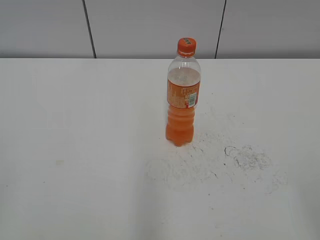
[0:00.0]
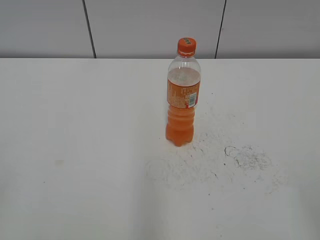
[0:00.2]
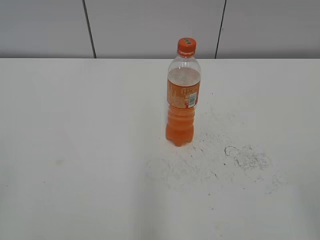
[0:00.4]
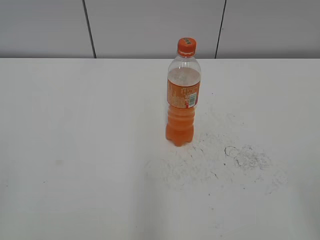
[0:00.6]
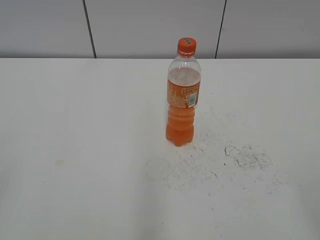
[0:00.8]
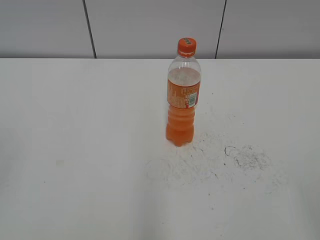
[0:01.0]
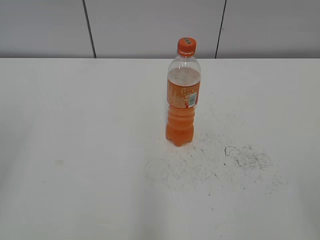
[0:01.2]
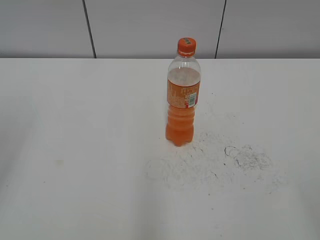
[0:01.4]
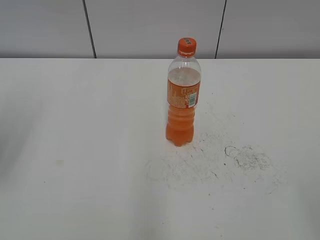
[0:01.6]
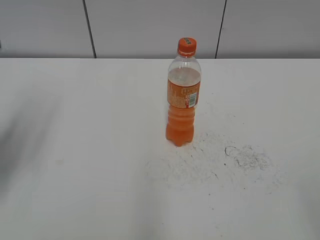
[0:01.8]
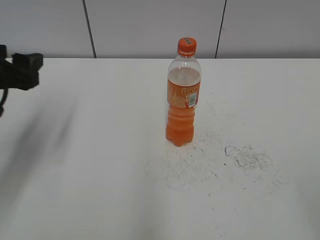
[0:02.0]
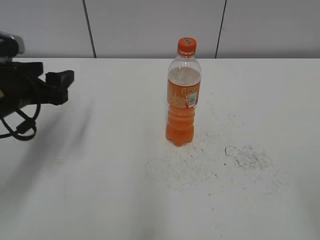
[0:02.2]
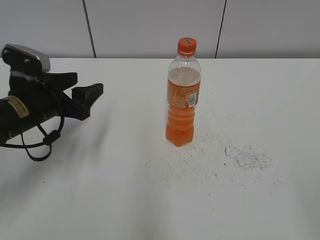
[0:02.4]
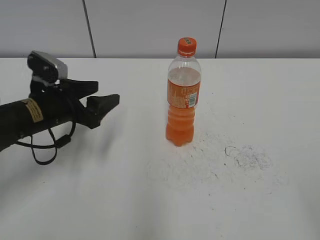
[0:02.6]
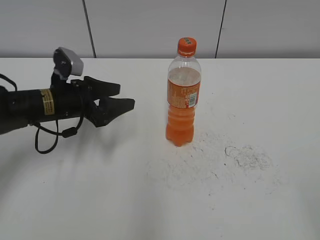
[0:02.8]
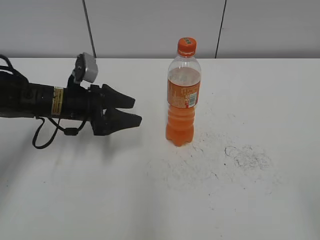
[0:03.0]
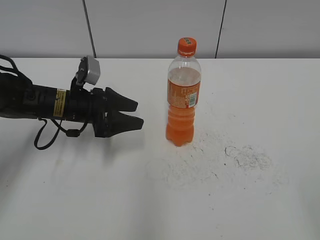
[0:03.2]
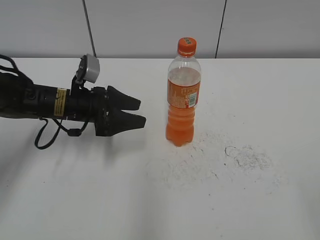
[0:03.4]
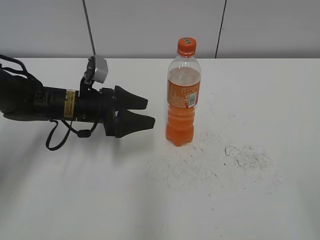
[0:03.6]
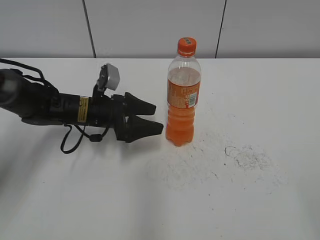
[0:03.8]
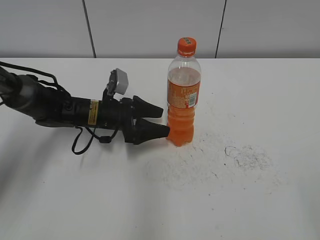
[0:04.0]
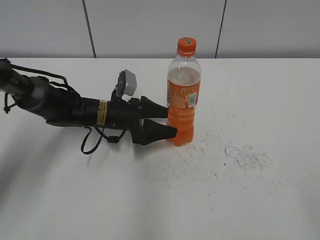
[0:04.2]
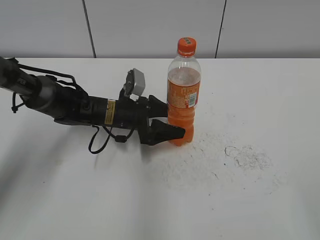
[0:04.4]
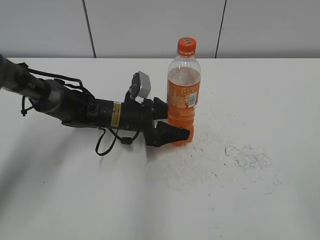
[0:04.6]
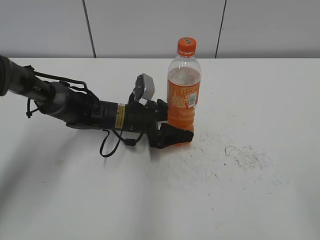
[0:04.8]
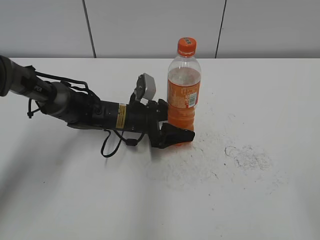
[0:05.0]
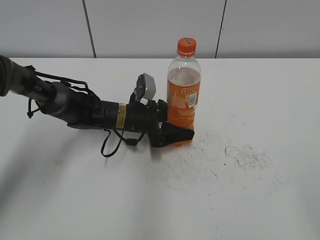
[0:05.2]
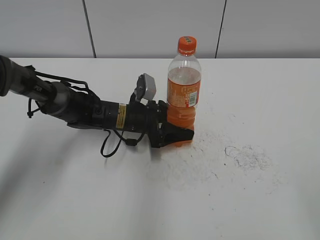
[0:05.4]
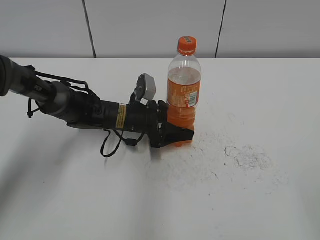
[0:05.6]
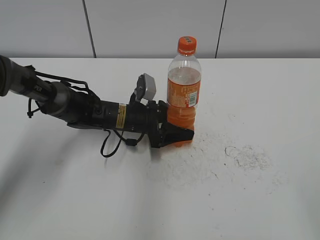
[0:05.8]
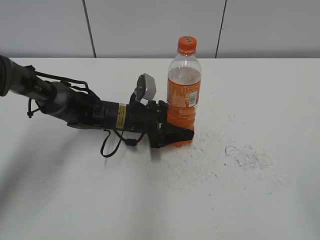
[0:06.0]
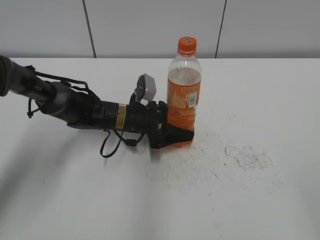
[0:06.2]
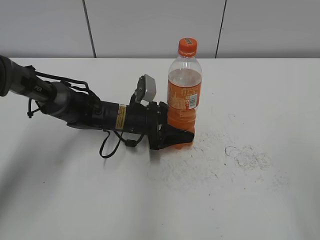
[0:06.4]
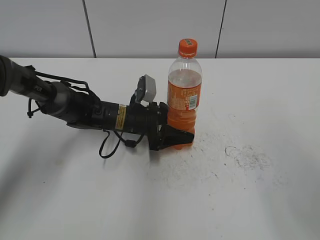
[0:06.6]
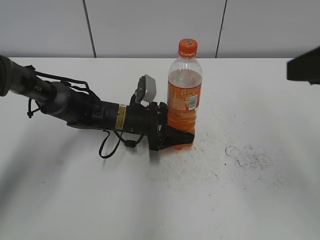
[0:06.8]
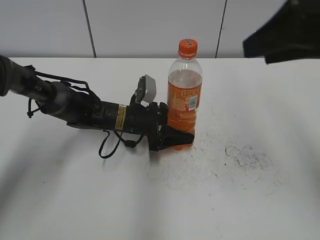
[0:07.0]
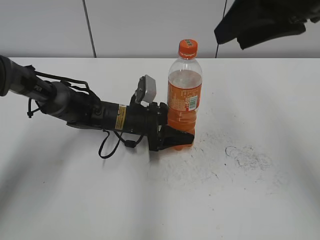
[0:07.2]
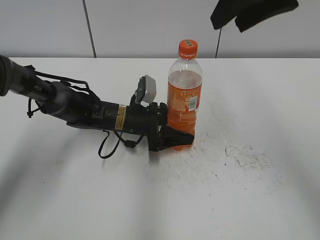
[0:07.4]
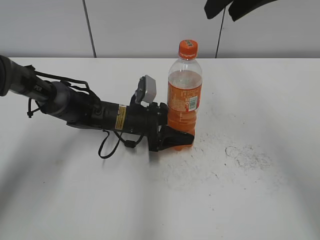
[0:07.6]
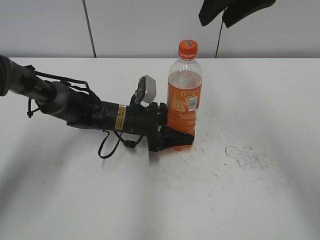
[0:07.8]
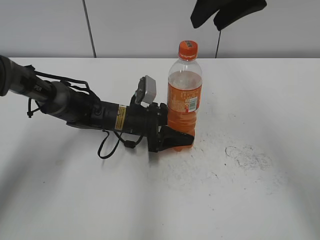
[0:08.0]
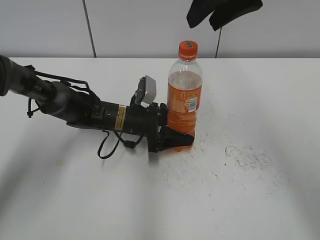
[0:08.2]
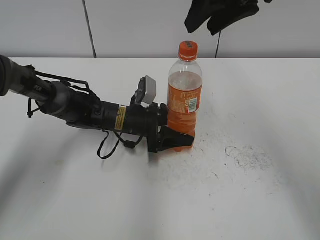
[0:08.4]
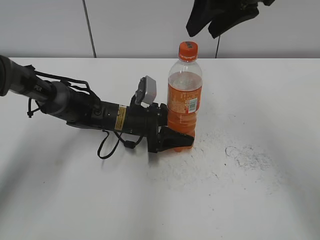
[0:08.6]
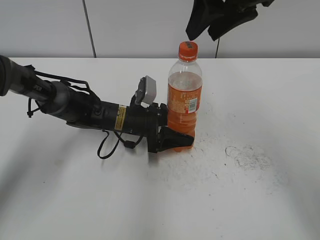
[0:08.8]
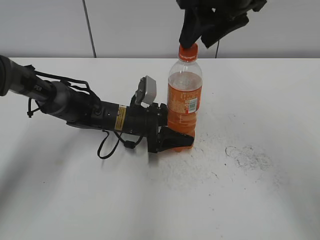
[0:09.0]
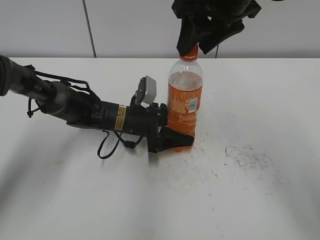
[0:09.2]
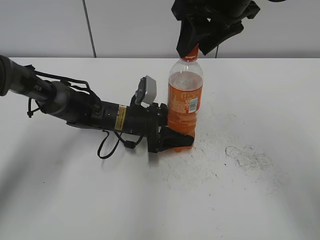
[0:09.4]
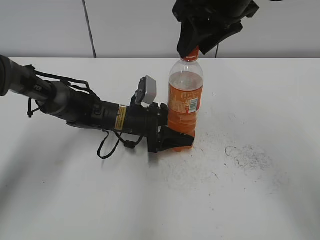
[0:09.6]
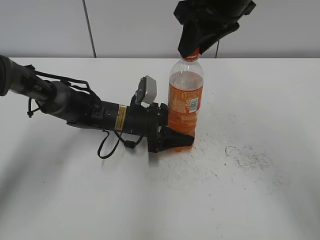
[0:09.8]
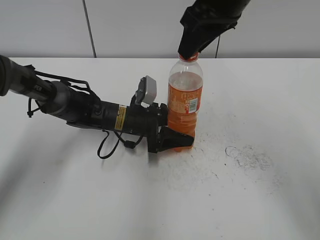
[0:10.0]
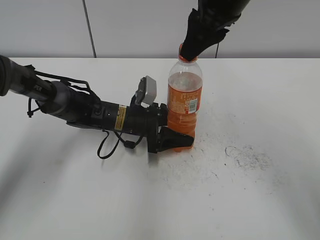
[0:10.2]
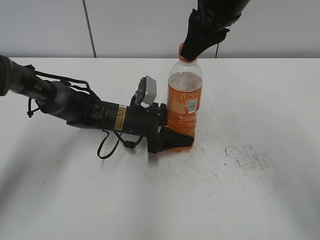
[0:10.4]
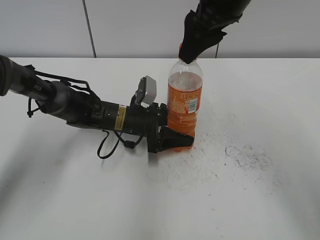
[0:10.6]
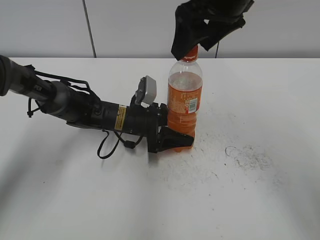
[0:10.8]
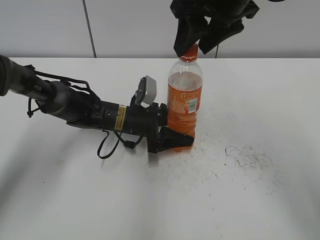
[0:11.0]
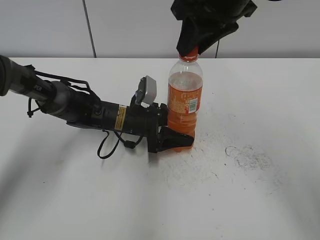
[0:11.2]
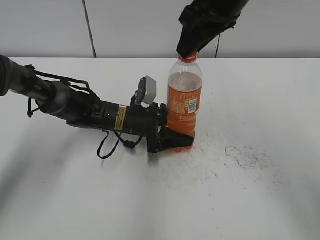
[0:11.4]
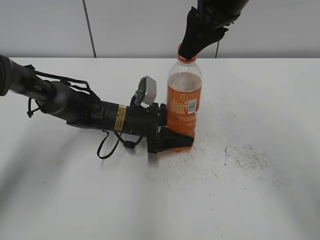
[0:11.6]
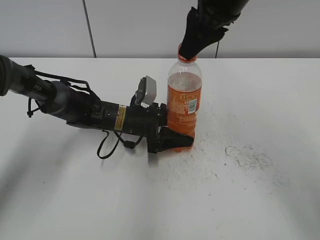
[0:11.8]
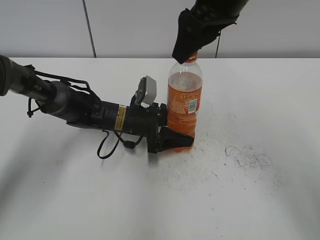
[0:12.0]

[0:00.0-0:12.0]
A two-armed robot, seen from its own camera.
Step, 0:00.0 to 0:05.2: Grab the Mirinda with the left hand.
0:01.6 to 0:03.0: The left gripper is displaced downward, forward and to the right by roughly 30 cm.
0:03.0 to 0:04.4: The left gripper travels to the right by approximately 10 cm, and opens.
0:04.4 to 0:06.0: The left gripper closes up.
0:06.0 to 0:07.6: The right gripper is displaced forward and to the left by about 35 cm.
0:07.6 to 0:09.0: The right gripper changes place by roughly 5 cm.
0:09.0 to 0:10.4: The right gripper closes up.
0:10.4 to 0:12.0: The right gripper opens.

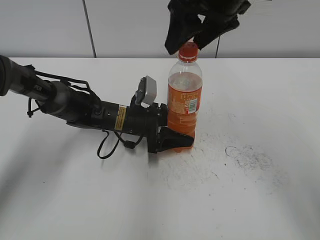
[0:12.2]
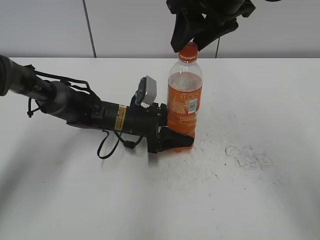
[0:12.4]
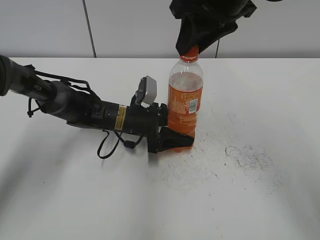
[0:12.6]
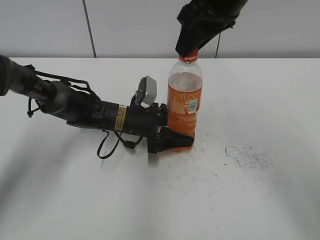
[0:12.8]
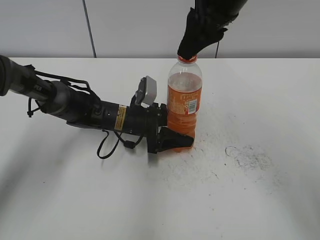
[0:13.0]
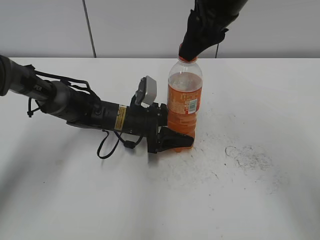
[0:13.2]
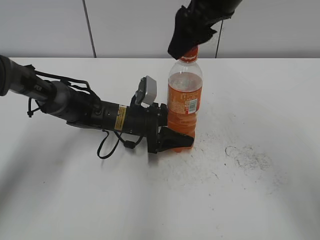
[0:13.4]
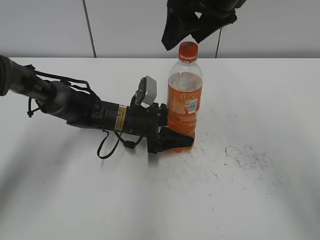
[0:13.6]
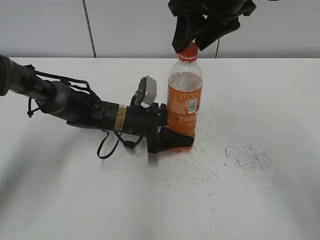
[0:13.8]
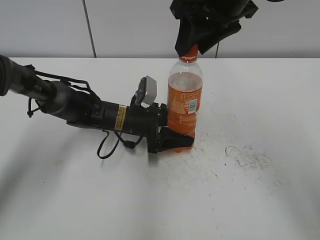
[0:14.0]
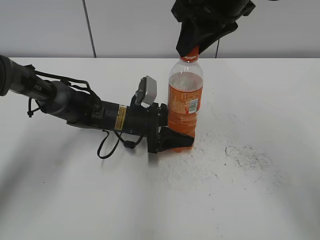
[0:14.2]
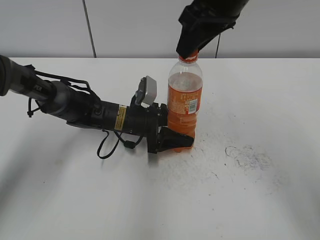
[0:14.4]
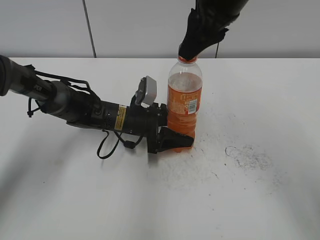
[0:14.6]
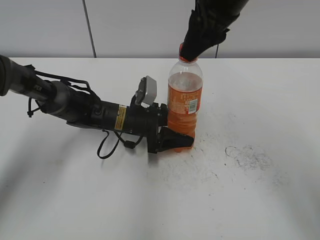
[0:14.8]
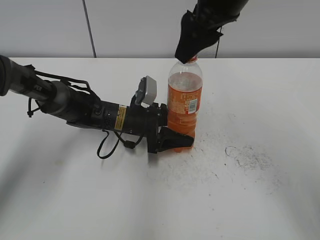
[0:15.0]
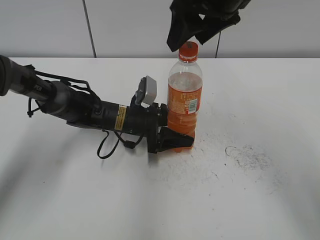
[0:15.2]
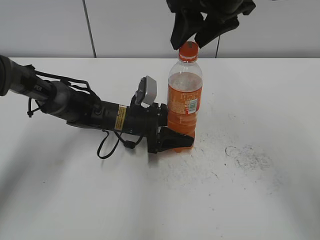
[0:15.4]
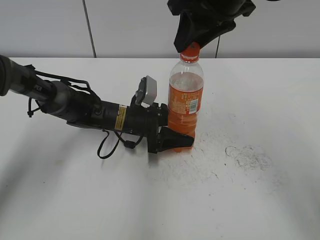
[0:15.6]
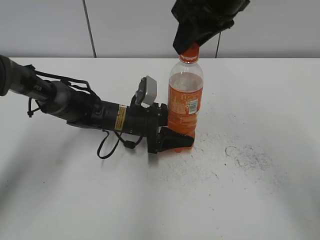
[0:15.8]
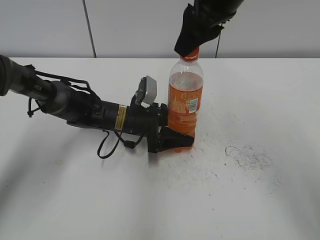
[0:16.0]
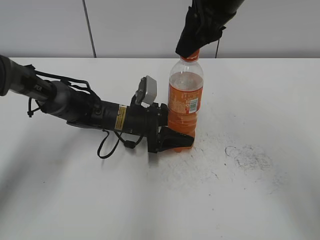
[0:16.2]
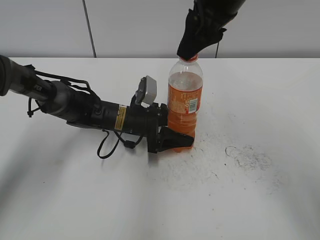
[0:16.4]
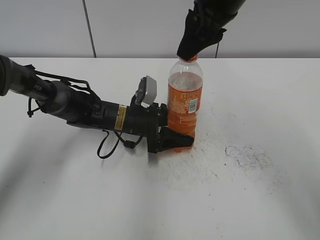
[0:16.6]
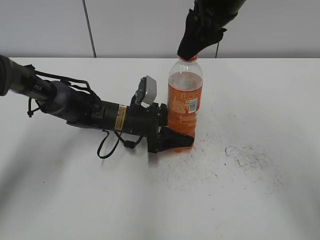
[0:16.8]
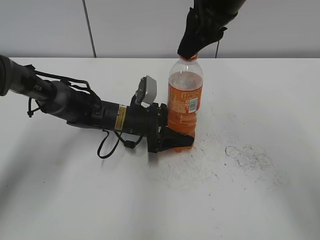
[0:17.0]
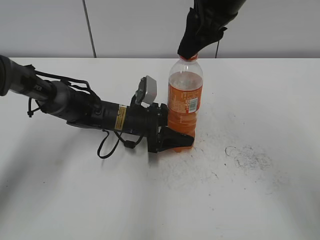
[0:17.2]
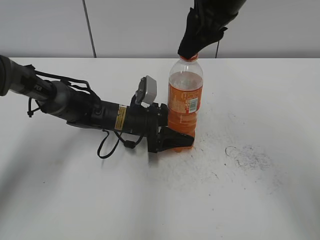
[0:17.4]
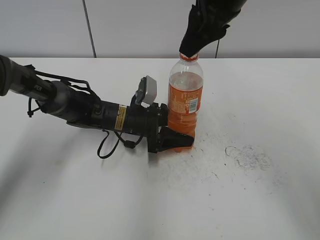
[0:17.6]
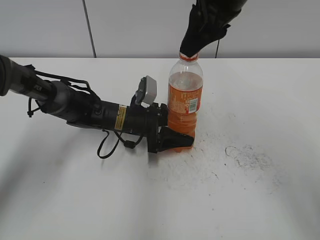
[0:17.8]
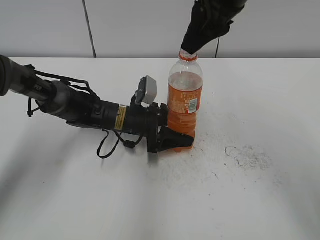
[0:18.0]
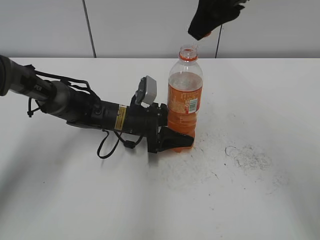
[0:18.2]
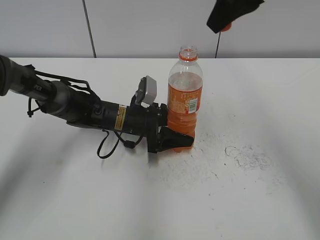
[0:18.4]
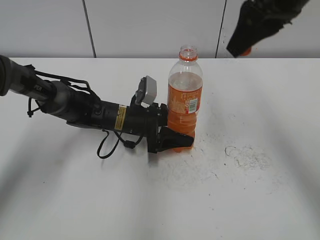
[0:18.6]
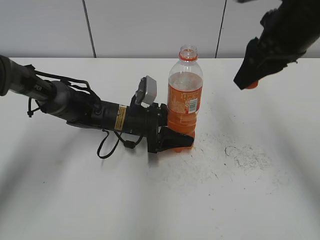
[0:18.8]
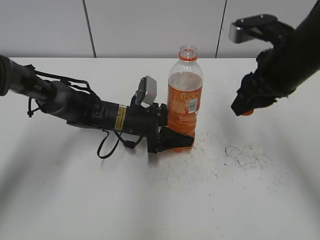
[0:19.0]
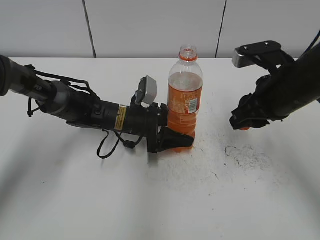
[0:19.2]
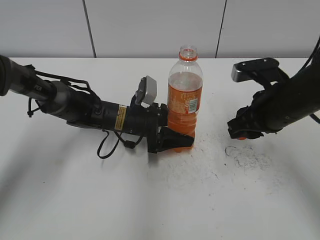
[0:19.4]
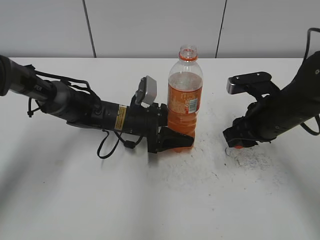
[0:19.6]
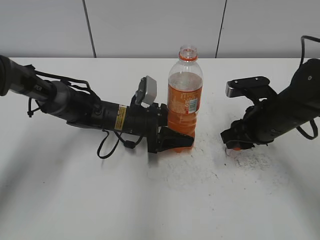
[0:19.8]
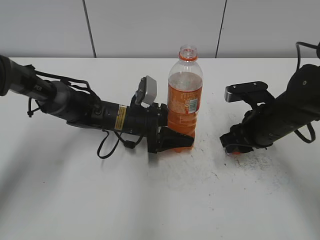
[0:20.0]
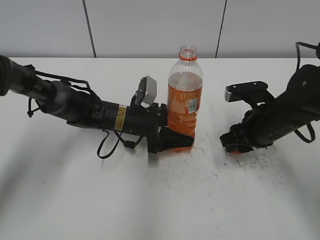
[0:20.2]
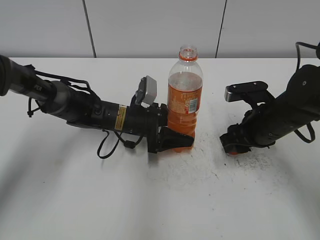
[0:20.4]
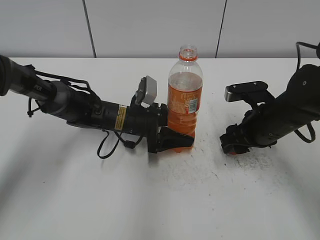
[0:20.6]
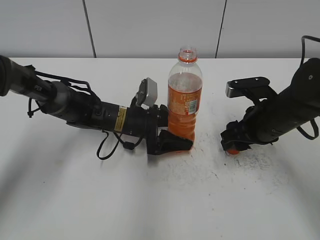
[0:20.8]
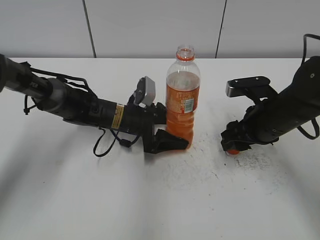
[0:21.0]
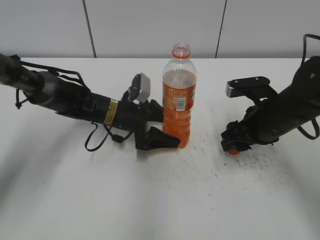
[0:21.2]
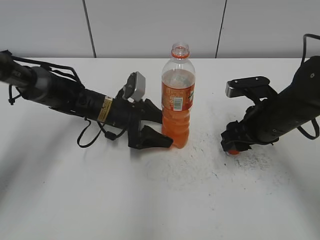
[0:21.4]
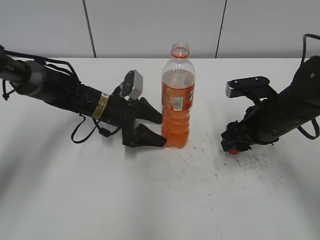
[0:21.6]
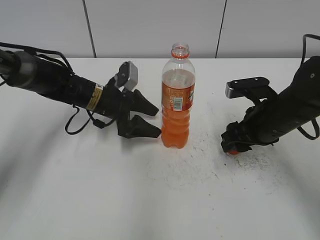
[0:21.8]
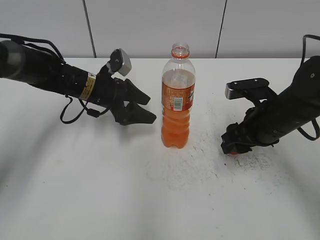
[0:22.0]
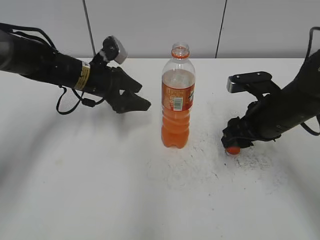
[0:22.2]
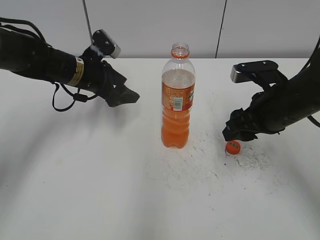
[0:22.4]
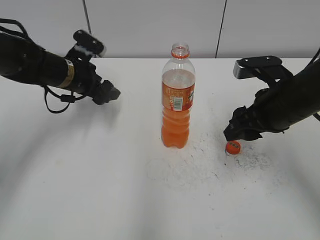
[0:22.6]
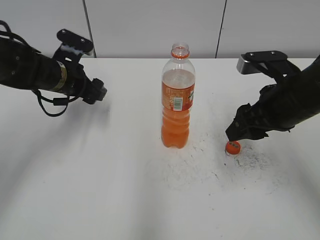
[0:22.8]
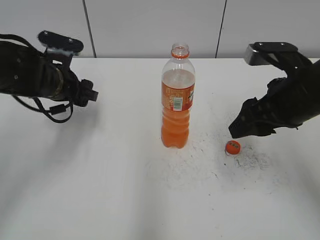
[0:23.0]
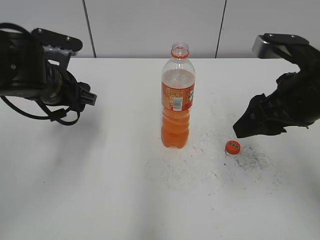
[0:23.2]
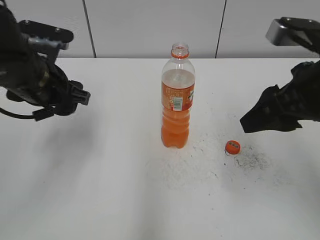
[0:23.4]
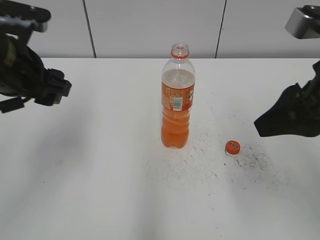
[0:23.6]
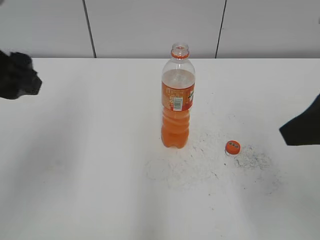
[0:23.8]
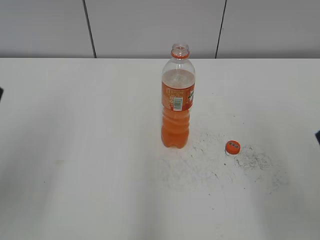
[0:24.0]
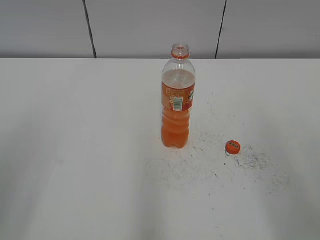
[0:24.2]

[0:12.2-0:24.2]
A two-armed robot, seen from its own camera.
Step, 0:12.2 to 0:17.8: Twist the bottle cap with the right hand.
0:12.2 to 0:13.8: The right gripper closes up.
0:13.8 to 0:15.2: The right gripper opens.
0:15.2 to 0:16.6: The right gripper closes.
0:16.6 to 0:18.2: The right gripper closes up.
0:18.2 to 0:19.8: The right gripper shifts approximately 25 cm downward.
0:19.8 to 0:21.2: The left gripper opens its fingers; the right gripper opens.
0:21.2 to 0:22.6: The left gripper is displaced to the left and upward by approximately 10 cm, and closes up. Meanwhile the right gripper shifts some 5 cm upward.
0:22.6 to 0:24.2: The two grippers go approximately 30 cm backward and upward.
